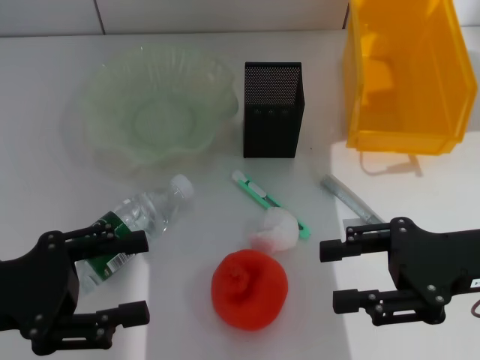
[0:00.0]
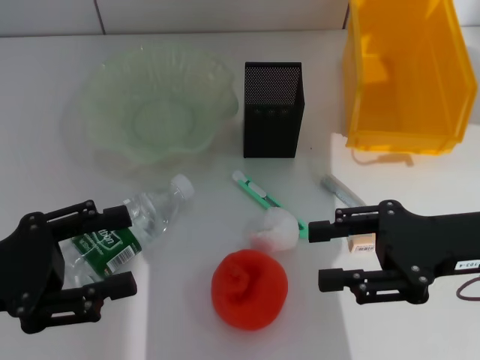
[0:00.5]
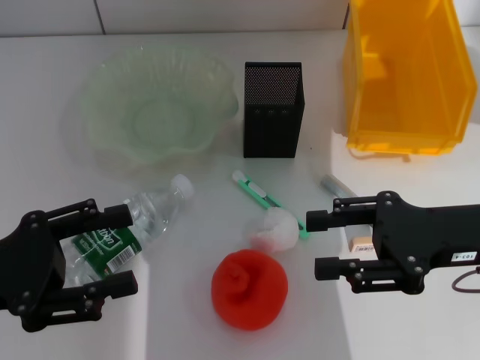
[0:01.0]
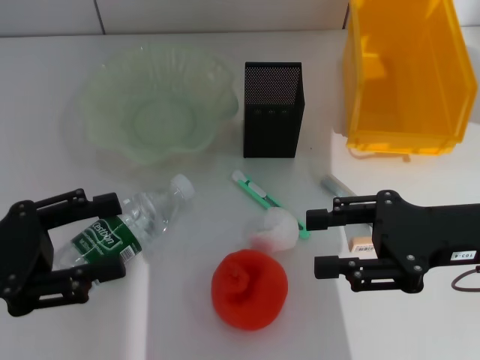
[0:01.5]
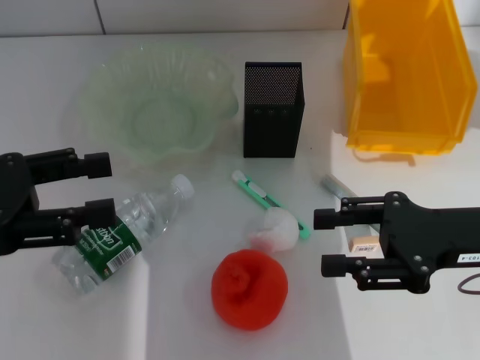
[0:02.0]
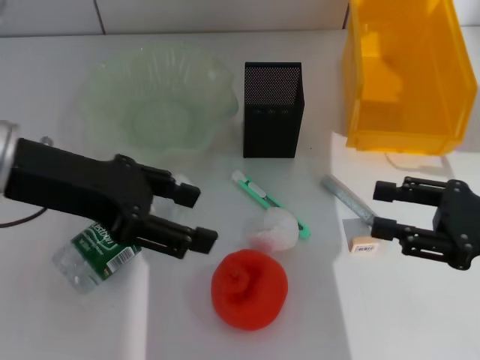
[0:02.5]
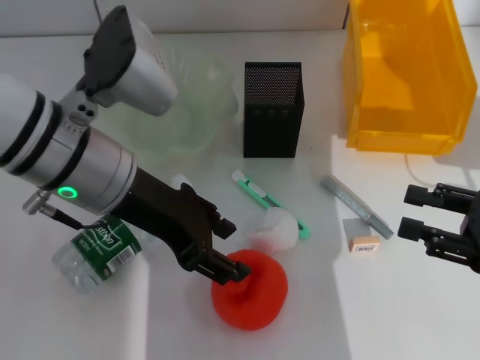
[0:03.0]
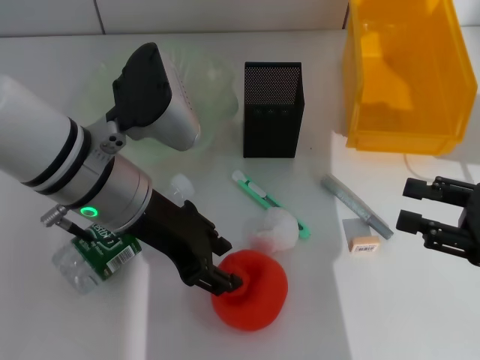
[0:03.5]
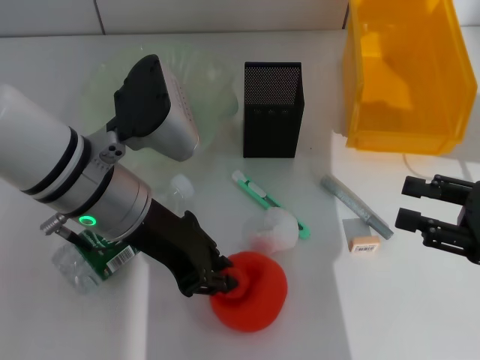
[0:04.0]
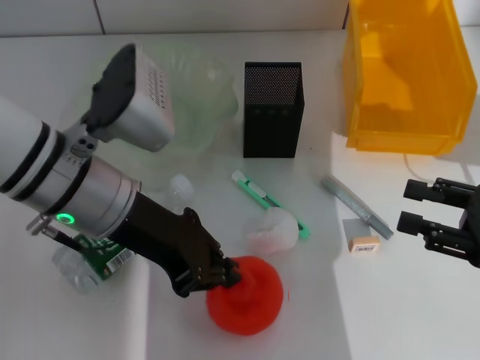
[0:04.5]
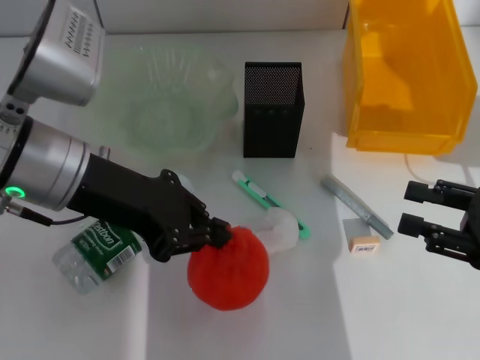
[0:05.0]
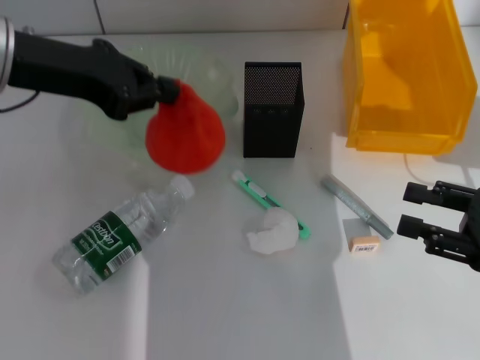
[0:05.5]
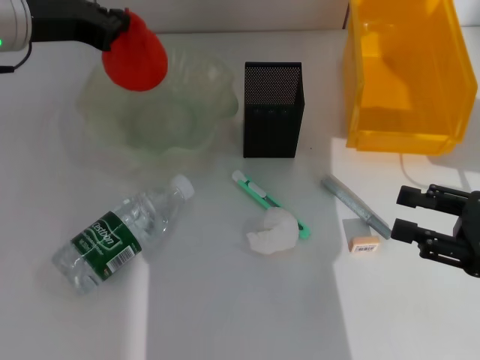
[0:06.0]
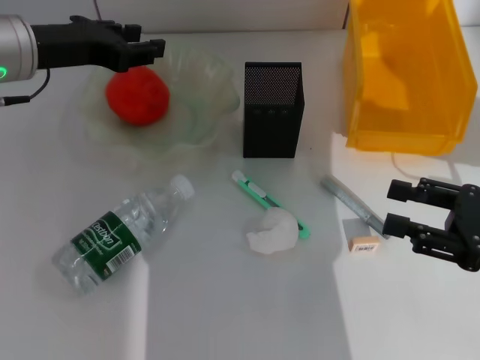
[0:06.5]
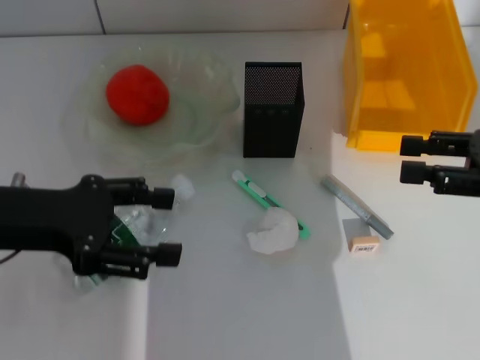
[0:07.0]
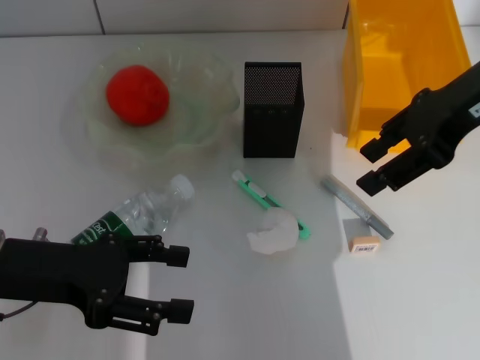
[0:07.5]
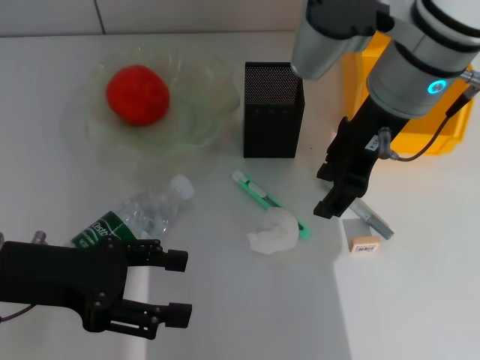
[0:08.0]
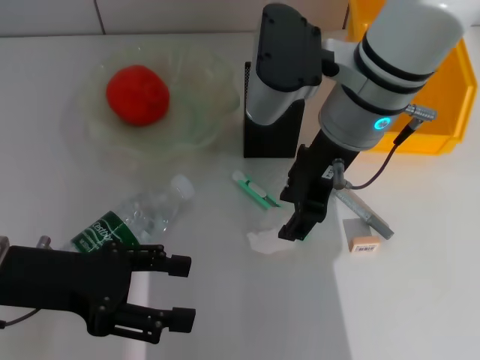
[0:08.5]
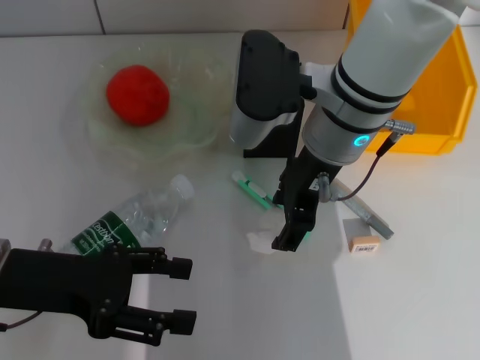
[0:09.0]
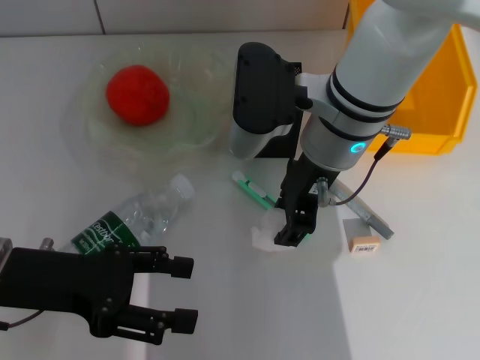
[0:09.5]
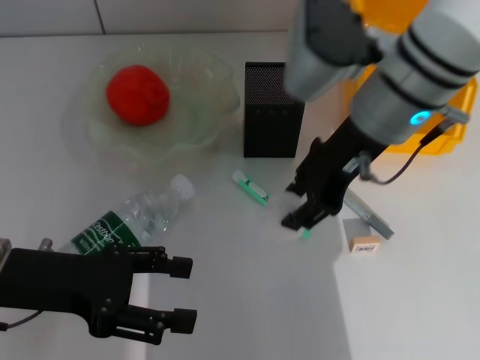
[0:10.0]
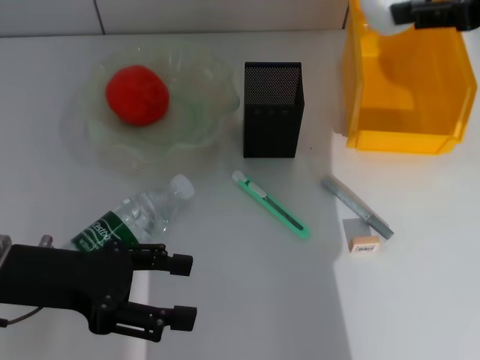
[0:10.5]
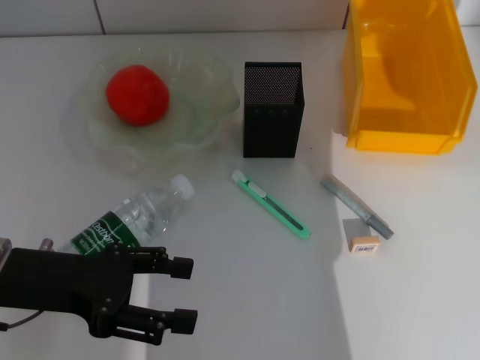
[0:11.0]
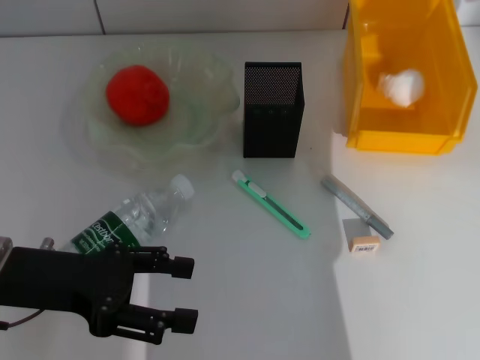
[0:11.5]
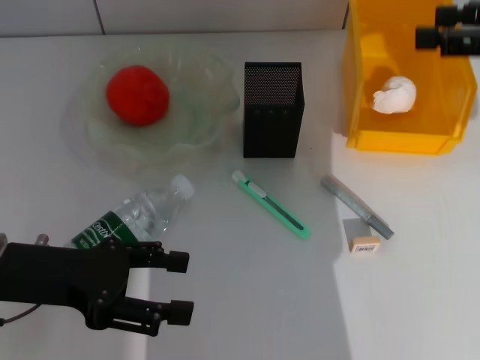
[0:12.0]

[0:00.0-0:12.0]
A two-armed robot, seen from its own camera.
Step, 0:00.0 to 0:04.0: Grab the orange with the left hand.
Step, 0:04.5 to 0:06.0: Place the orange into the fruit bowl with the left hand.
Step, 0:06.5 to 0:09.5: Grab the paper ball with the right hand.
Step, 0:10.0 to 0:11.5: Place the paper ball into the trash can with the right hand.
0:00.0 to 0:02.0: The left gripper shifts some 5 cm upward.
0:02.0 to 0:04.0: The left gripper goes roughly 15 cm to the right, and closes its fingers, while the right gripper travels to the right by approximately 5 cm.
0:04.0 to 0:06.0: The left gripper shifts some 15 cm forward and to the left, and closes its fingers.
0:06.0 to 0:08.0: The right gripper heads to the left, forward and upward, covering approximately 30 cm, while the left gripper is displaced backward and downward by about 20 cm, and opens up.
0:10.0 to 0:12.0: The right gripper moves to the right, roughly 20 cm.

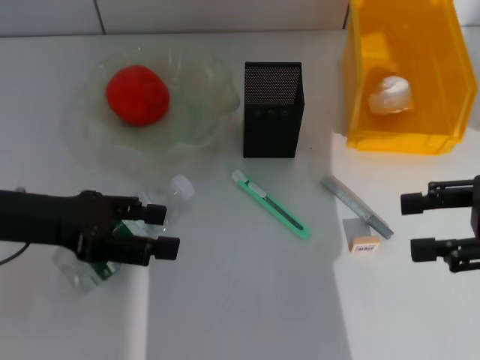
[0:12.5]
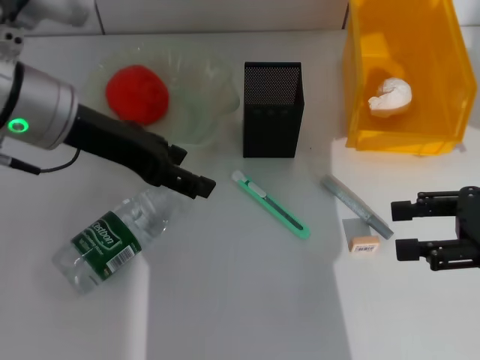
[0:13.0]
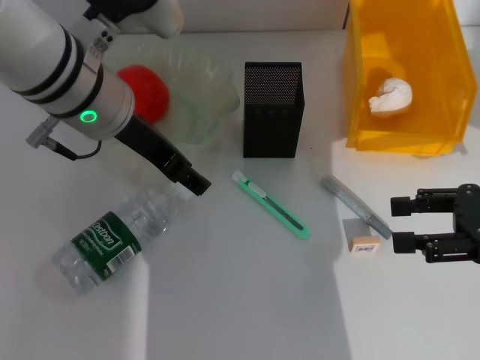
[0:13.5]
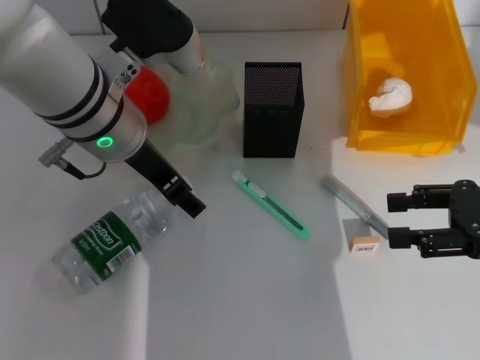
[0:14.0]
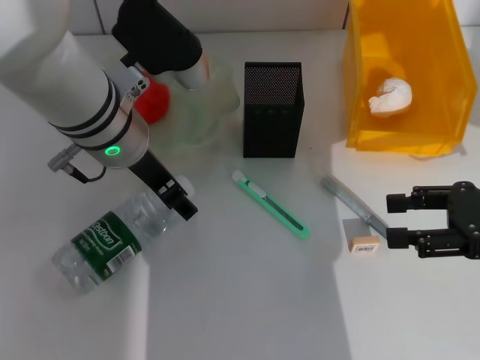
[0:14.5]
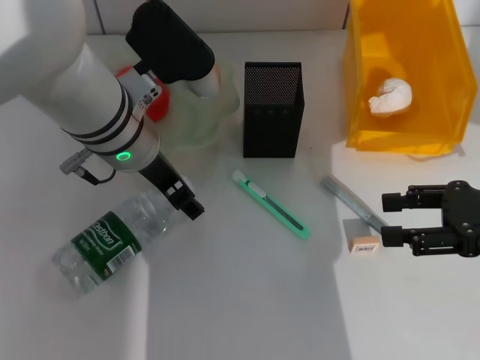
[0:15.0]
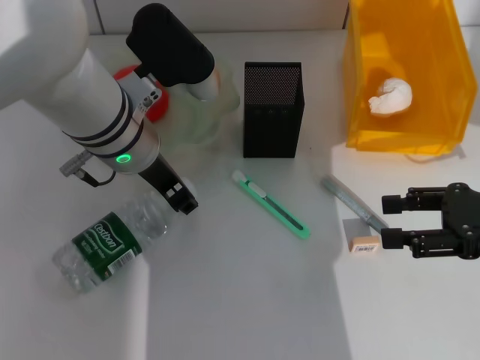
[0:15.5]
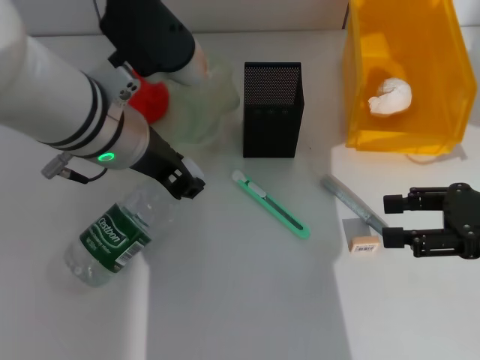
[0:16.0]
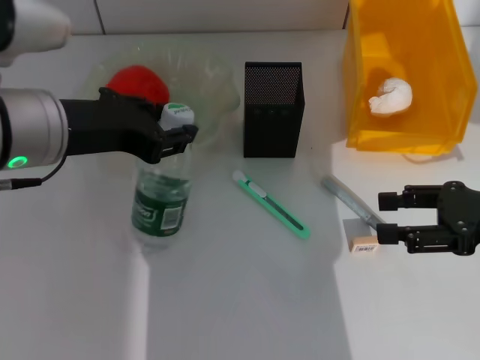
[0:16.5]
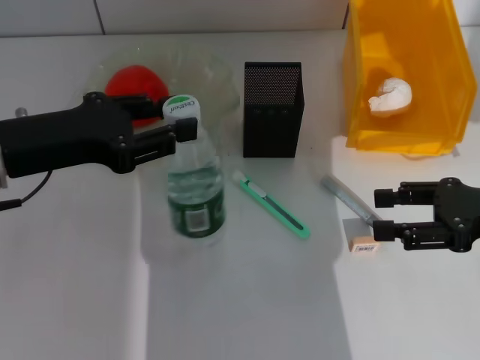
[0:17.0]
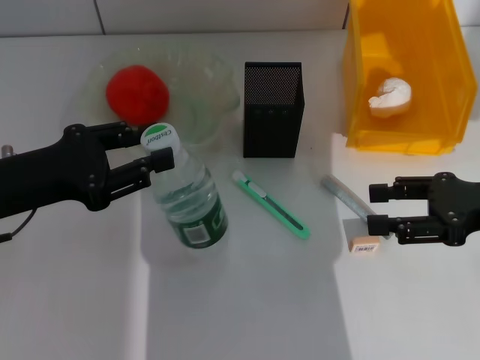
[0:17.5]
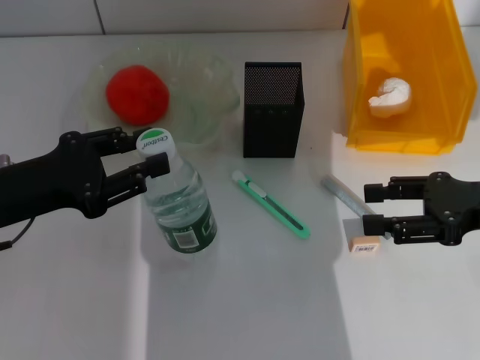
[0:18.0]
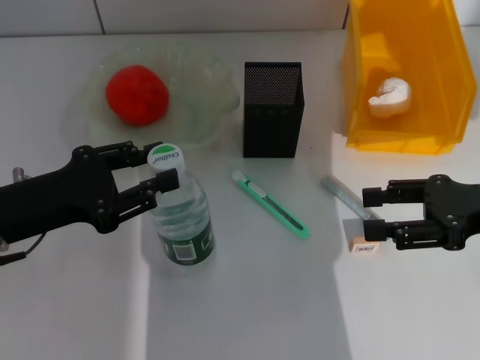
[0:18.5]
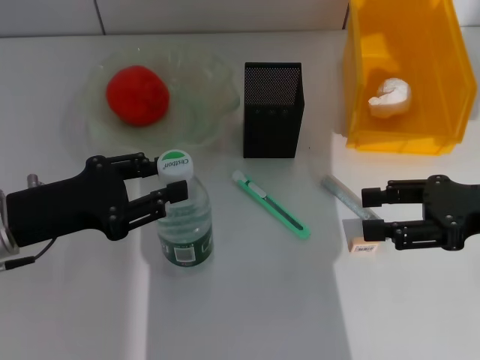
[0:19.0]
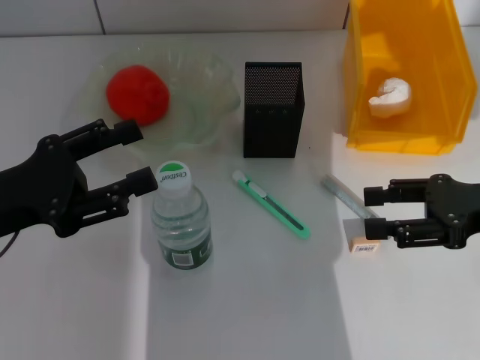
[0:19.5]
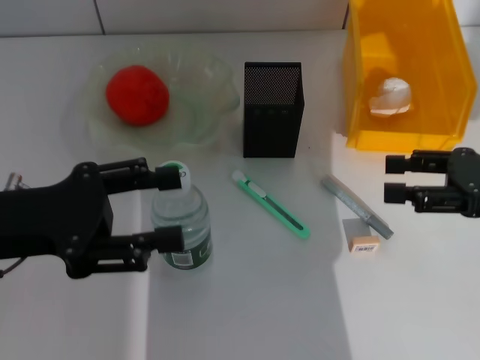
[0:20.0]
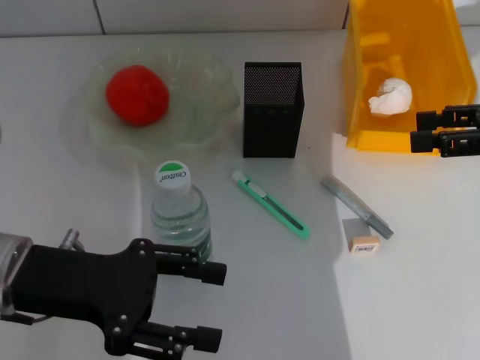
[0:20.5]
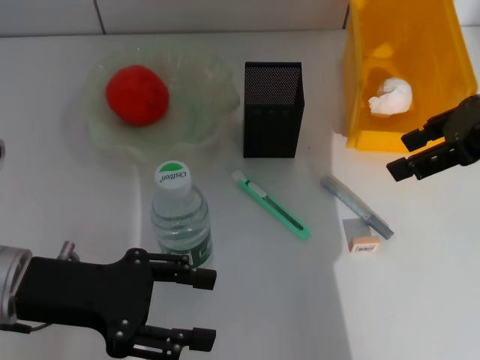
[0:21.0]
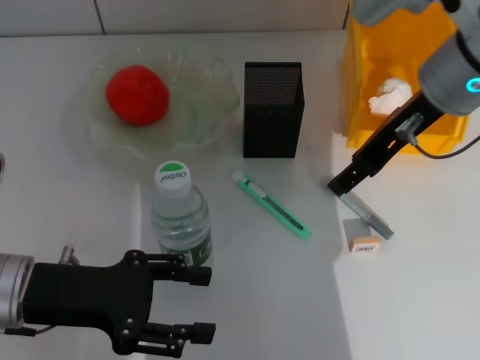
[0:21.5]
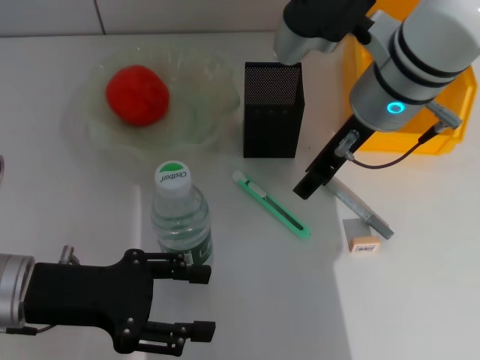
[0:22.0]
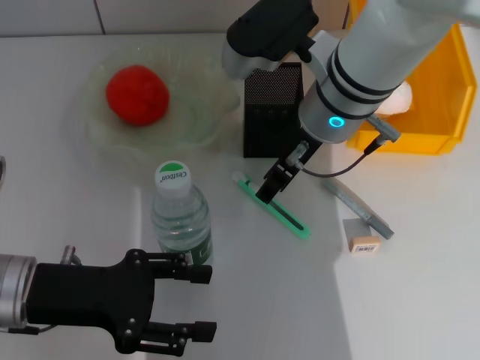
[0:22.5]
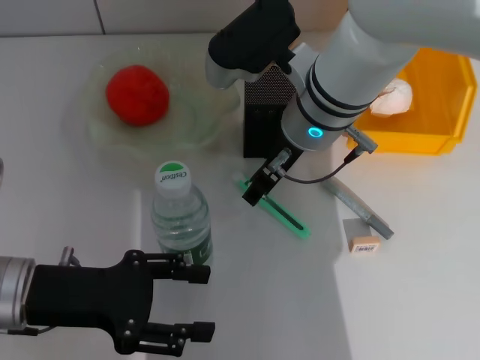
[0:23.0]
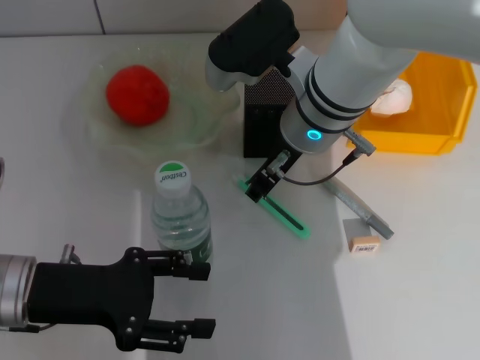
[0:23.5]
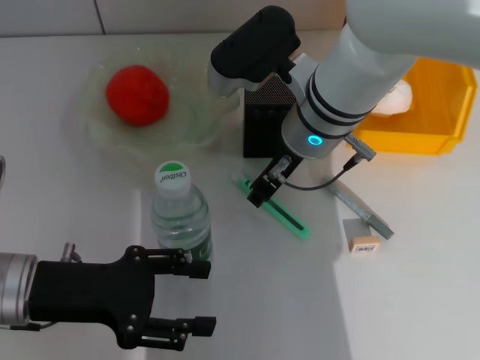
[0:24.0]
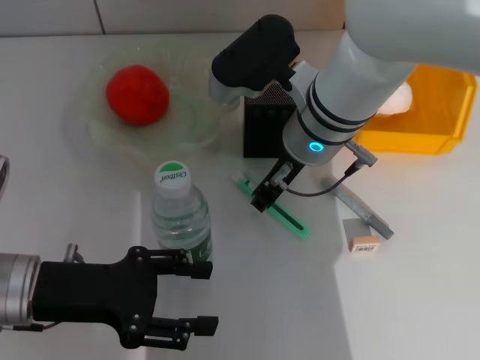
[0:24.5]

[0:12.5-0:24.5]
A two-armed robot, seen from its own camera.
Step, 0:12.5 to 0:15.0: Grab the water bottle with the left hand.
Step, 0:15.5 to 0:19.0: Place the water bottle on the table with the left hand.
0:12.5 to 0:14.5: The left gripper shifts some 15 cm to the right and forward.
0:14.5 to 0:16.5: The left gripper goes roughly 10 cm to the left and backward, and closes up.
0:16.5 to 0:18.5: The left gripper heads downward and to the left, covering some 15 cm.
0:18.5 to 0:20.5: The left gripper opens its fingers. The right gripper goes approximately 5 cm upward.
0:20.5 to 0:22.5: The right gripper is displaced to the left by some 25 cm.
0:22.5 to 0:24.5: The right gripper closes up.

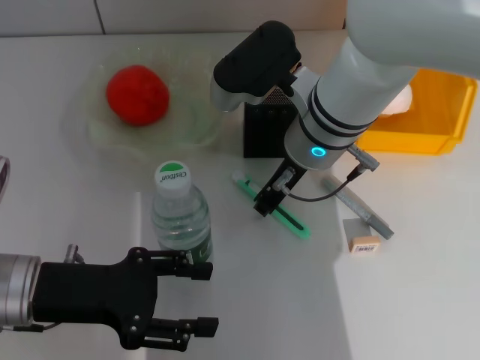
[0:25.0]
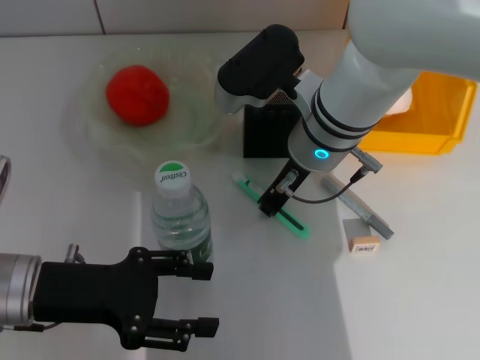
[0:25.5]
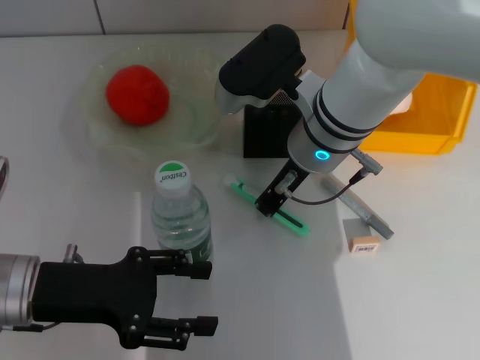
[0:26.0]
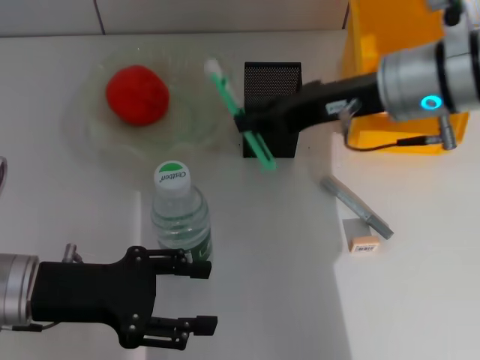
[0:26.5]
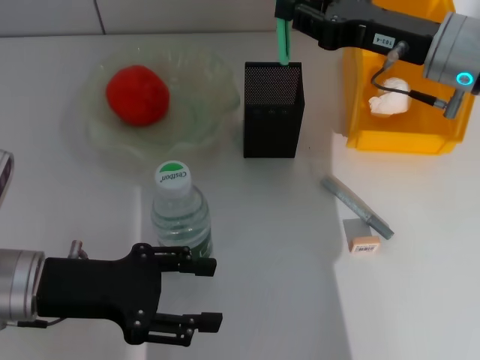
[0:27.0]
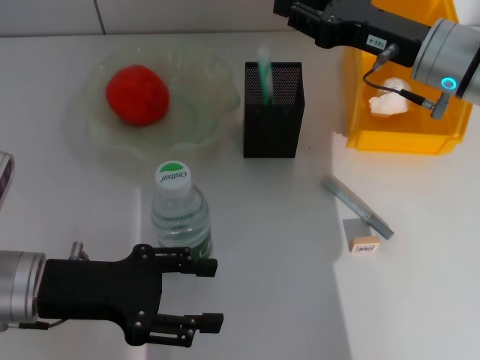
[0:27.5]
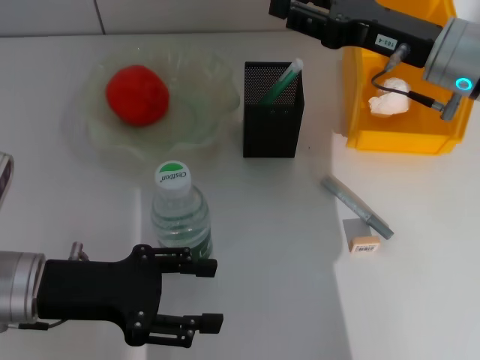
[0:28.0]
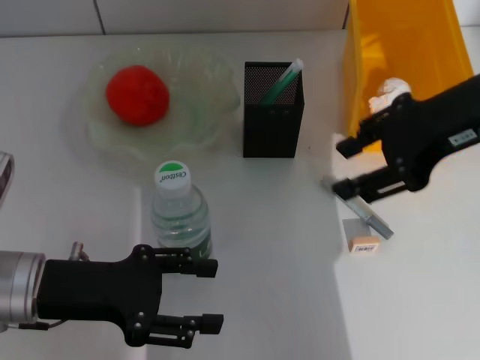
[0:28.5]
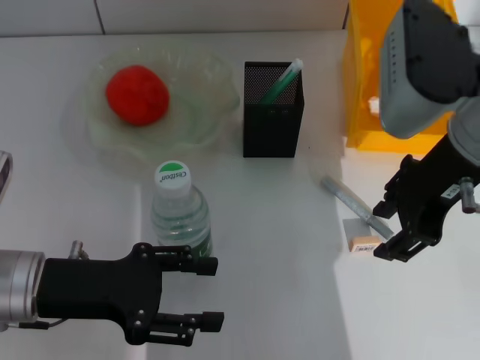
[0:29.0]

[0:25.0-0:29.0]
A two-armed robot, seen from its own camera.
Step, 0:26.0 to 0:27.5: Place the blue utility knife into the pen holder with the right hand.
0:25.0 to 0:27.0: The right gripper travels to the right by some 15 cm.
0:27.0 to 0:29.0: The right gripper is displaced backward and upward by about 10 cm, and opens.
